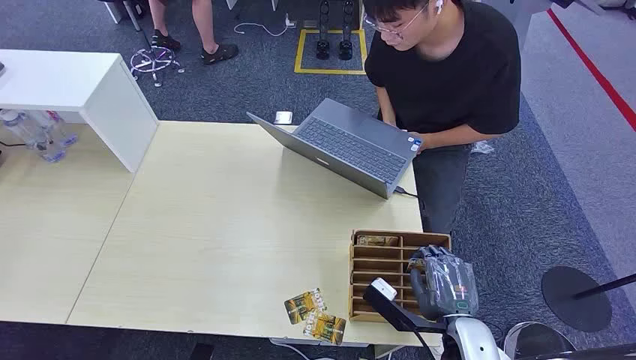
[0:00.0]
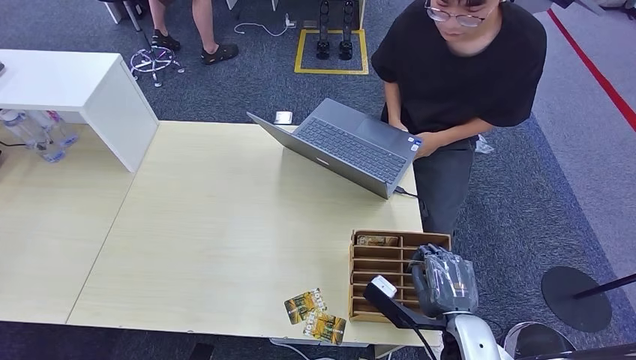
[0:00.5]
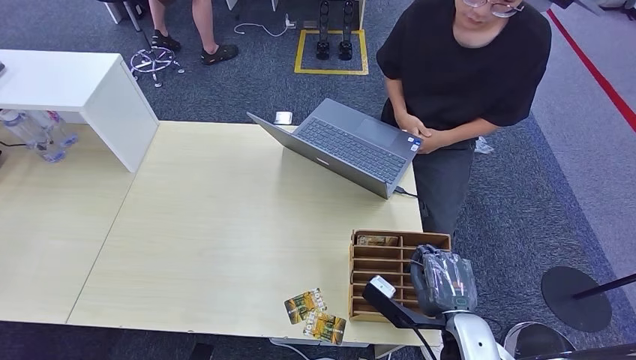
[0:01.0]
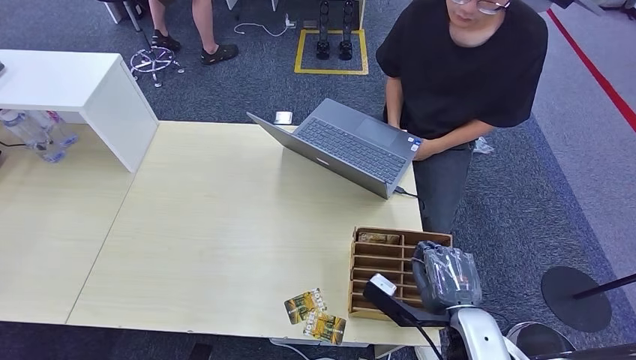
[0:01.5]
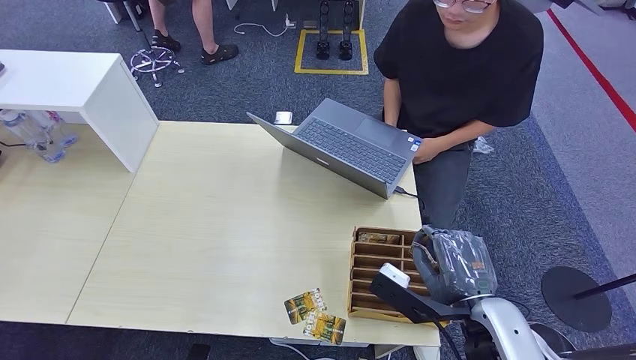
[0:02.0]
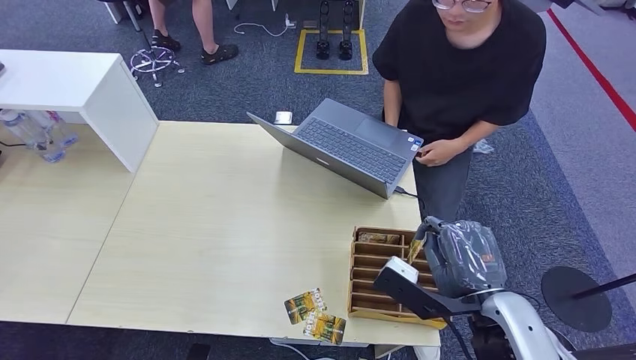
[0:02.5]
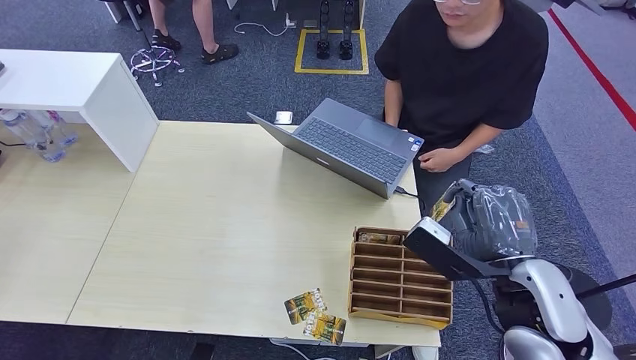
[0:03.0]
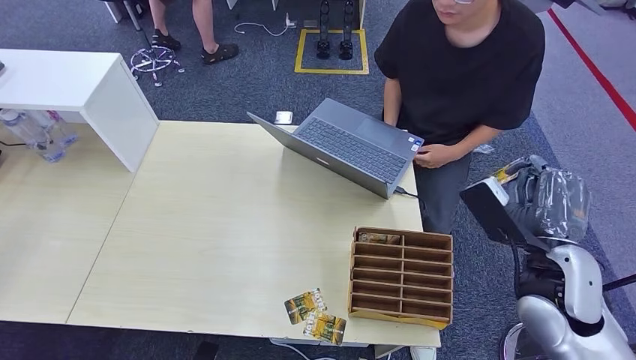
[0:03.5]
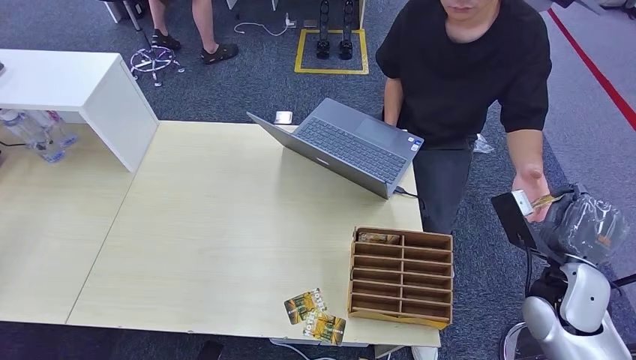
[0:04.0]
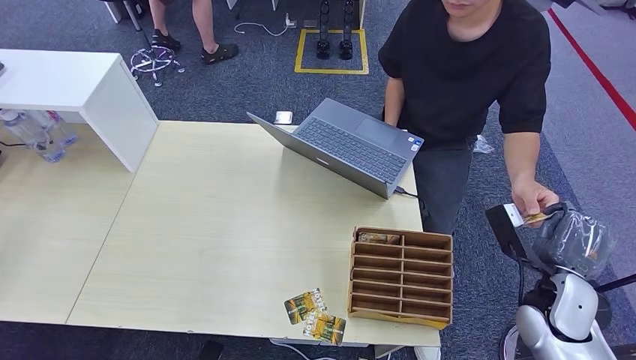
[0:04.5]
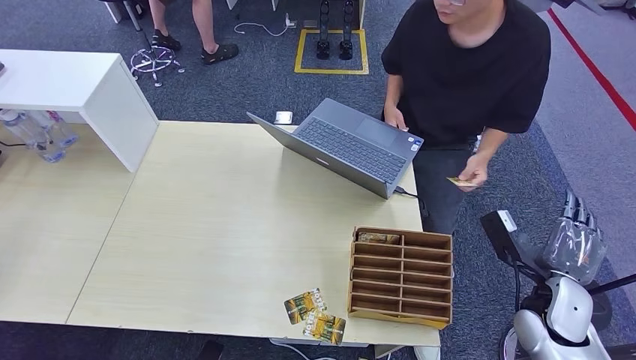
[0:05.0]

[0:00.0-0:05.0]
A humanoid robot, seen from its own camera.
Step, 0:00.0 to 0:03.0: Pick up the key card from the card box.
Step, 0:03.5 to 0:05.0: Hand the key card to the target.
0:02.5 to 0:05.0: The right hand goes roughly 20 cm to the right, downward and forward.
